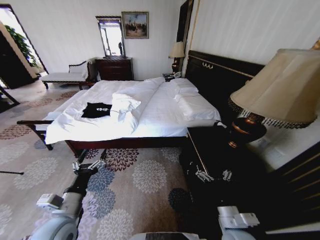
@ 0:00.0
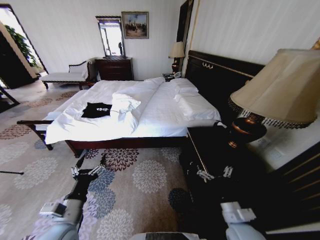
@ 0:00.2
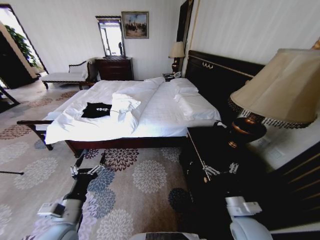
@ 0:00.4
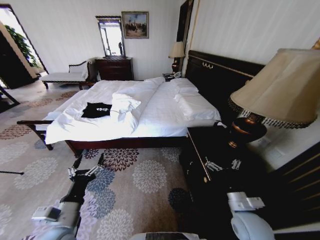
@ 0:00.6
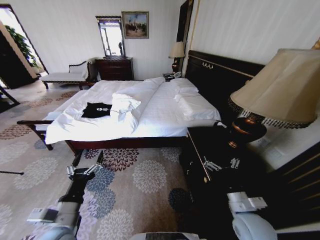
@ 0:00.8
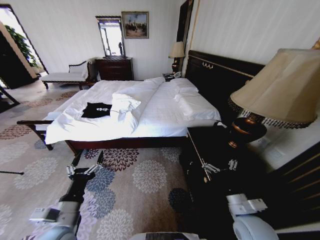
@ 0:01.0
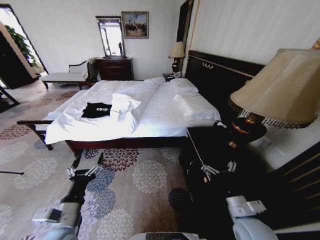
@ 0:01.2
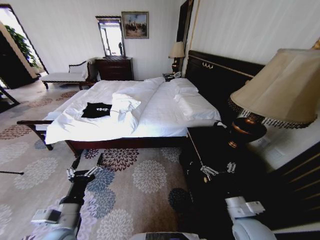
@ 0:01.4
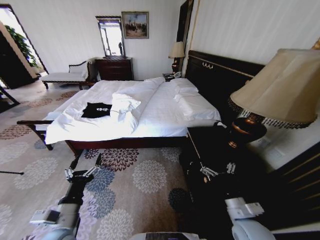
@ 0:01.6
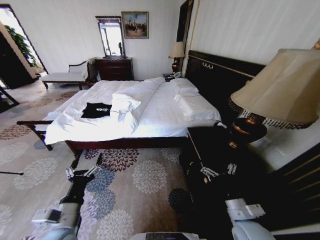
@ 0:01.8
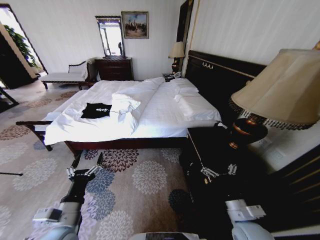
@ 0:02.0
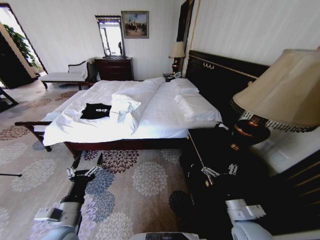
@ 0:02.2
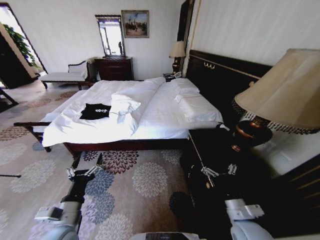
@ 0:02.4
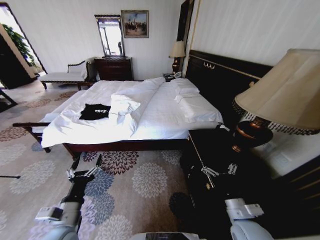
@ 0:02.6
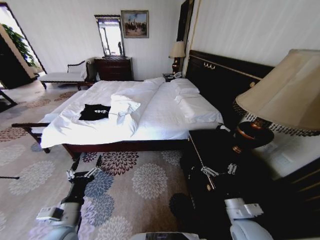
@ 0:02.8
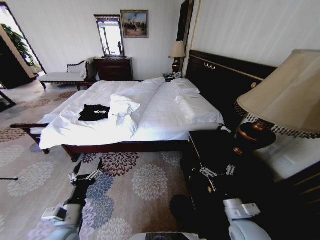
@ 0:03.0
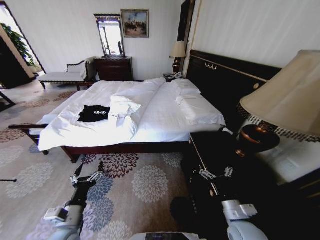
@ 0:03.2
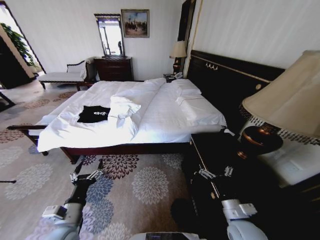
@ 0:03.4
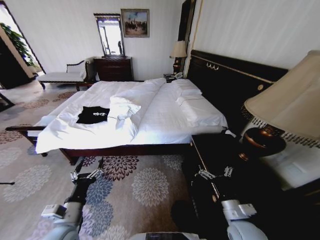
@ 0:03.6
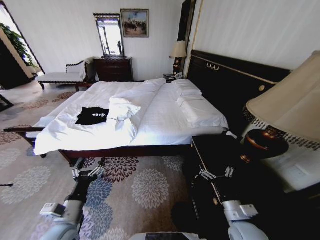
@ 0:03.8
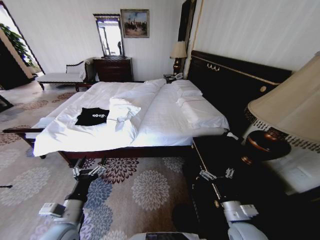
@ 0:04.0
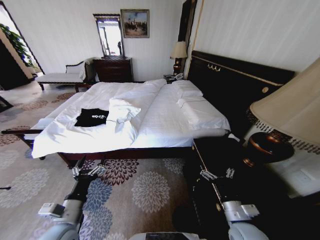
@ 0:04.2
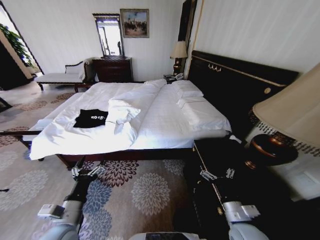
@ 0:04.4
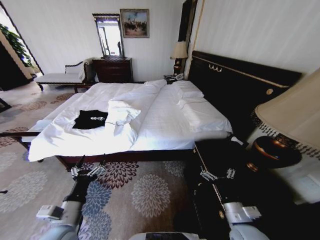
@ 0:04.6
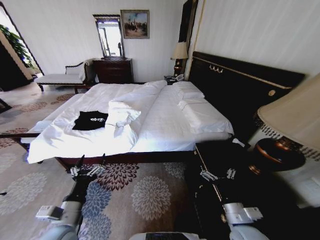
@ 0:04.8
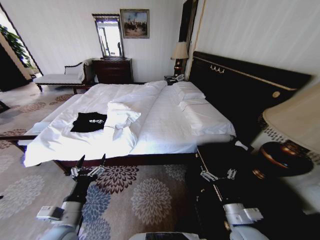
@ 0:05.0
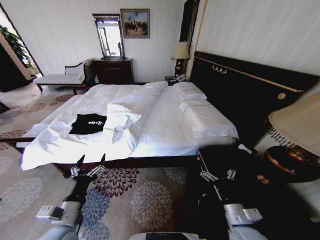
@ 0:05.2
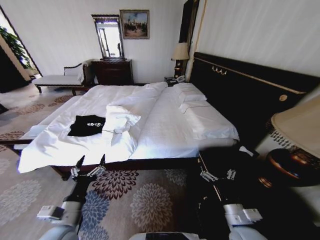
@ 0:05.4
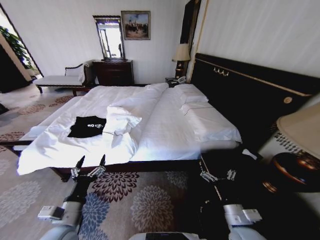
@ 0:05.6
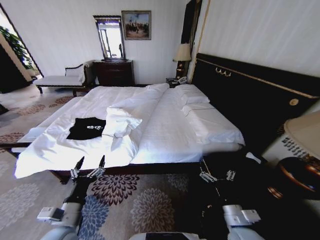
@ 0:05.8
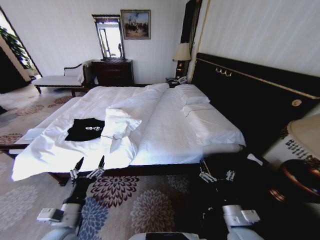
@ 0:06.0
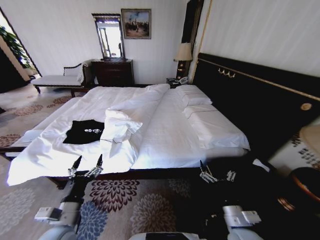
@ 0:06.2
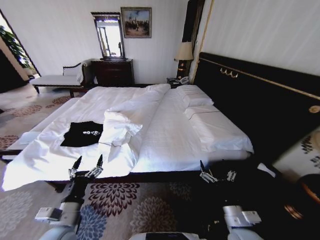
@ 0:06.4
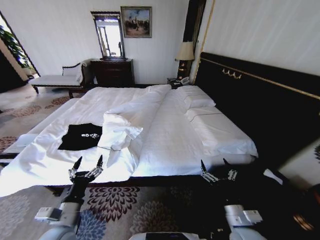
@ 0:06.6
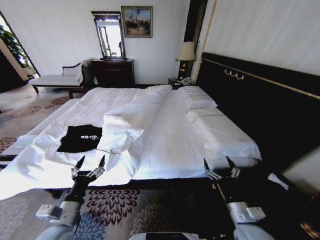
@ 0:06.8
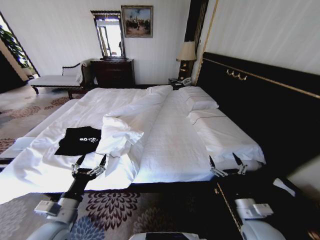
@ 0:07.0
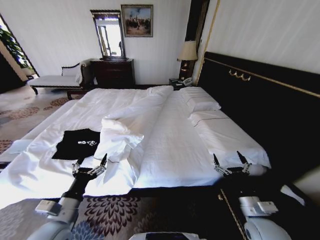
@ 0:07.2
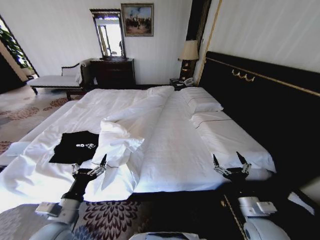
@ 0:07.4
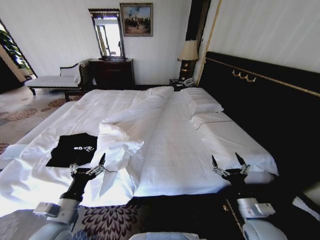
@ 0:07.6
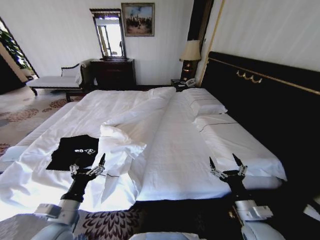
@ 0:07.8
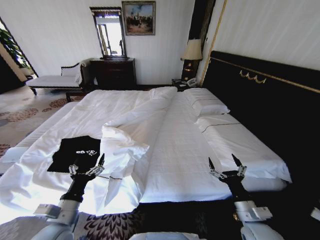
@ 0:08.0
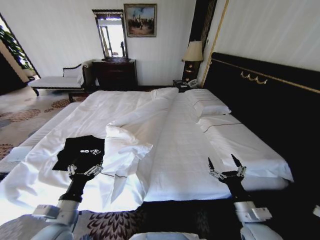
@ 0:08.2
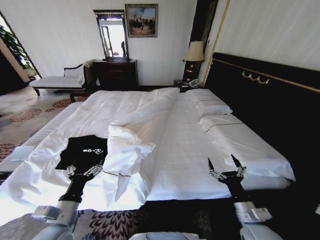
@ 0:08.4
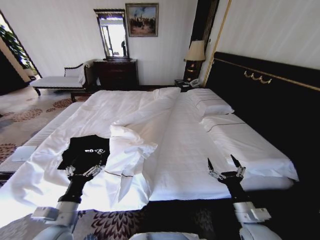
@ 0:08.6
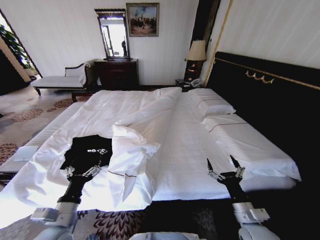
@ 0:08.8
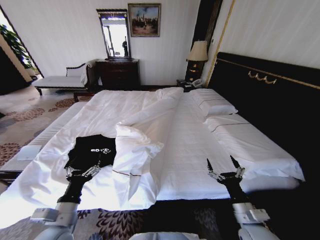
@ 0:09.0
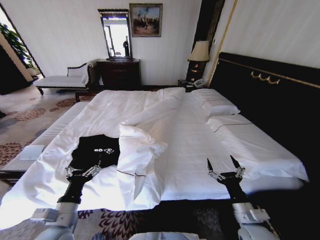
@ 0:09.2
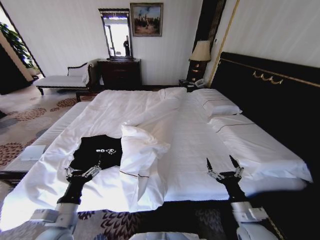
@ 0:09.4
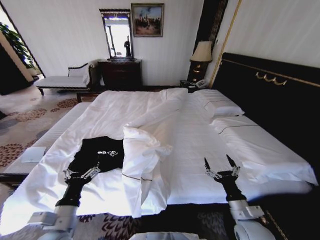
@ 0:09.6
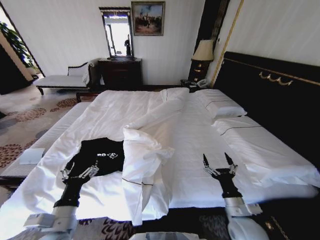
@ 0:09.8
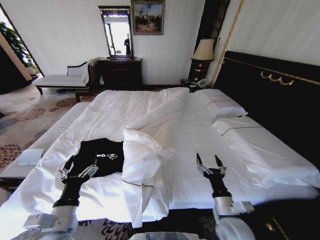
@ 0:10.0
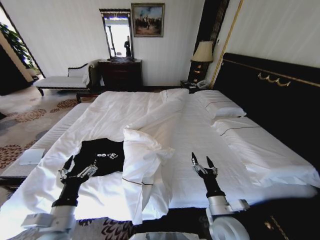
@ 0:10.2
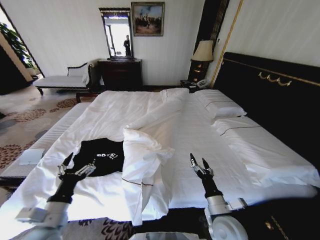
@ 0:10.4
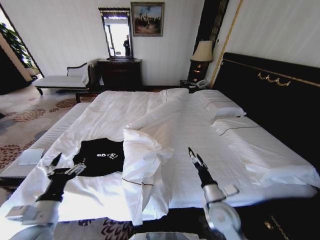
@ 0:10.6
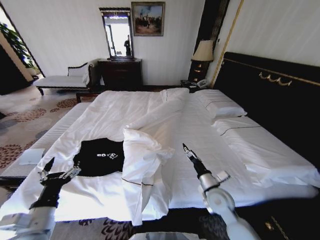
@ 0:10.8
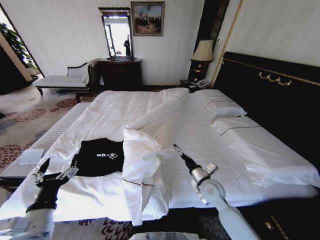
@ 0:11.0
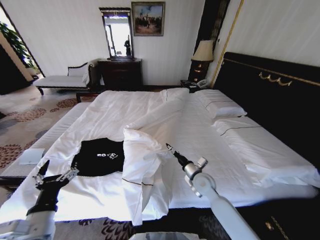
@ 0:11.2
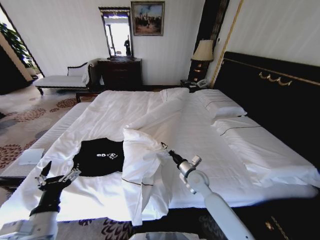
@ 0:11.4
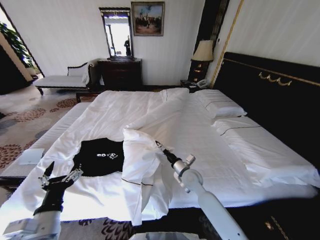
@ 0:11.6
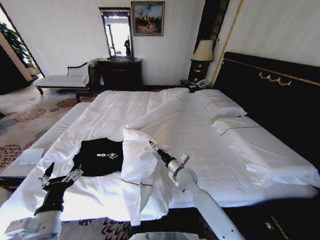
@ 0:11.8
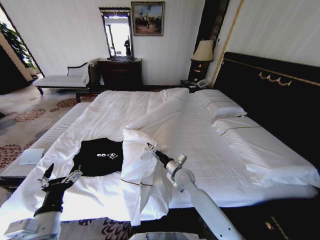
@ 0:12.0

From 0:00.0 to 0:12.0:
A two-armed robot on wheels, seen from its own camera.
Task of the whole recording: Fold the clothes on the bed.
From 0:06.0 to 0:07.6: The right gripper moves to the right, approximately 5 cm.
From 0:09.0 to 0:10.4: The right gripper shifts about 10 cm to the left.
From 0:10.4 to 0:12.0: The right gripper shifts about 20 cm forward and to the left.

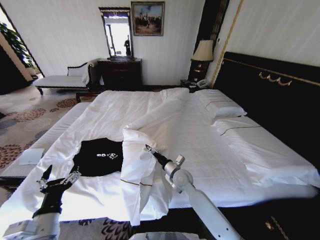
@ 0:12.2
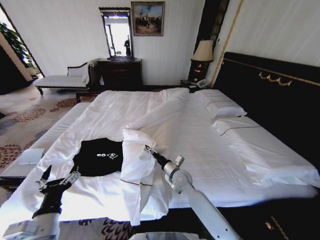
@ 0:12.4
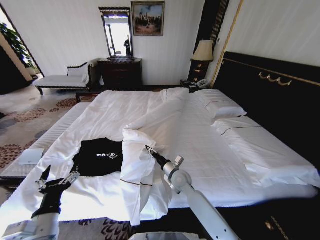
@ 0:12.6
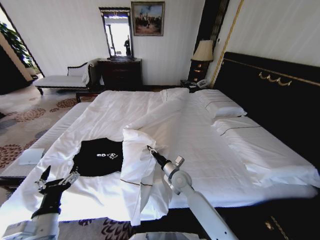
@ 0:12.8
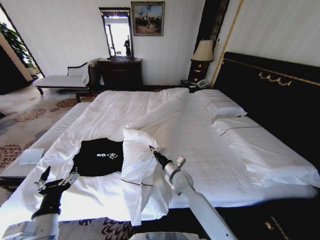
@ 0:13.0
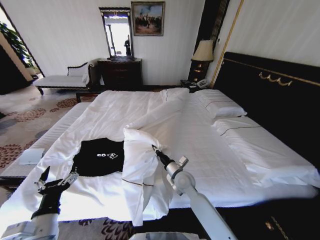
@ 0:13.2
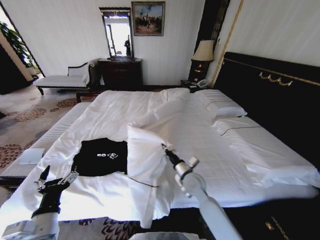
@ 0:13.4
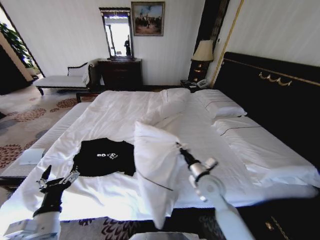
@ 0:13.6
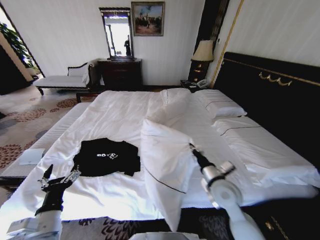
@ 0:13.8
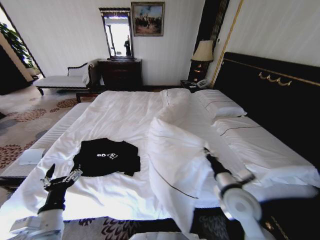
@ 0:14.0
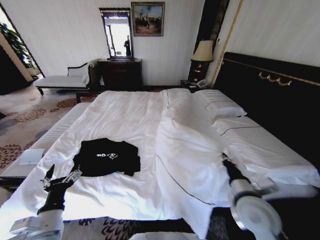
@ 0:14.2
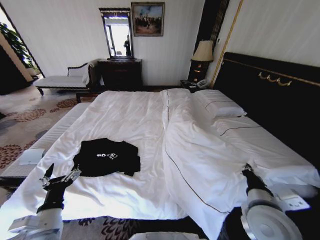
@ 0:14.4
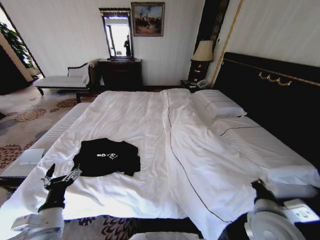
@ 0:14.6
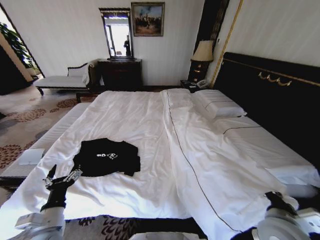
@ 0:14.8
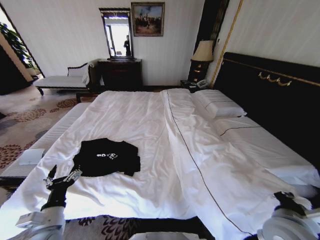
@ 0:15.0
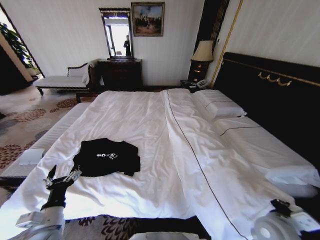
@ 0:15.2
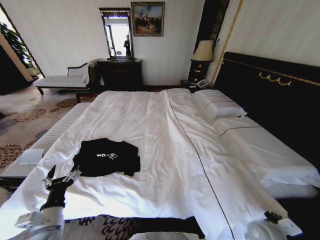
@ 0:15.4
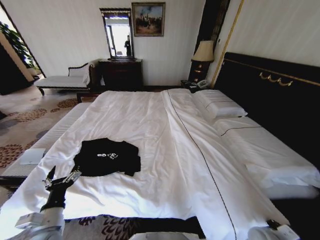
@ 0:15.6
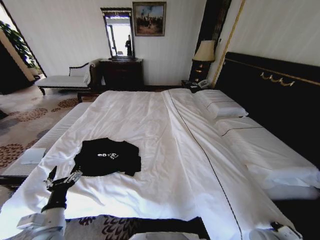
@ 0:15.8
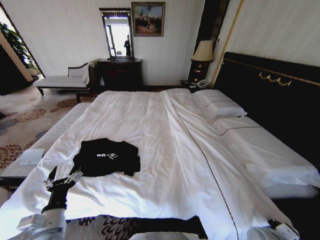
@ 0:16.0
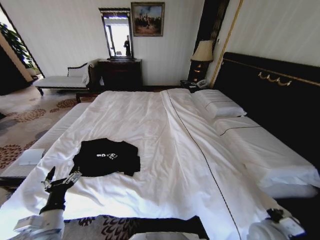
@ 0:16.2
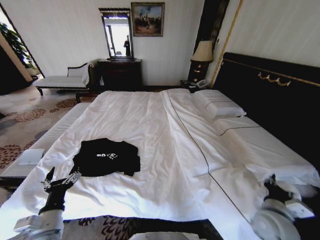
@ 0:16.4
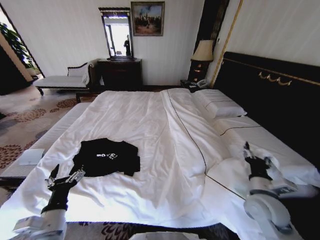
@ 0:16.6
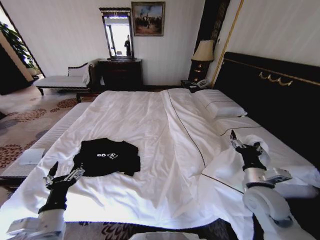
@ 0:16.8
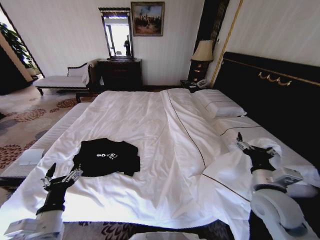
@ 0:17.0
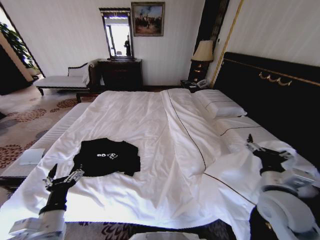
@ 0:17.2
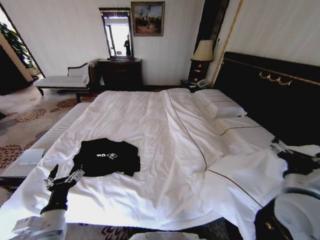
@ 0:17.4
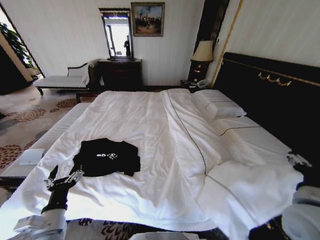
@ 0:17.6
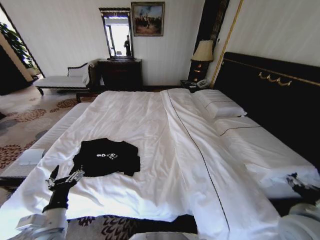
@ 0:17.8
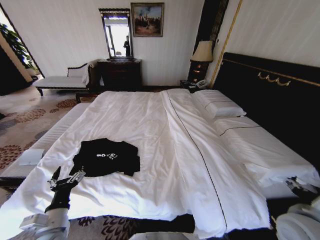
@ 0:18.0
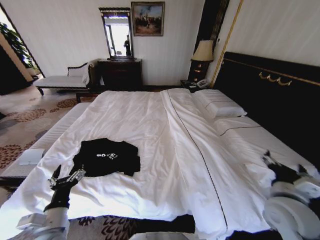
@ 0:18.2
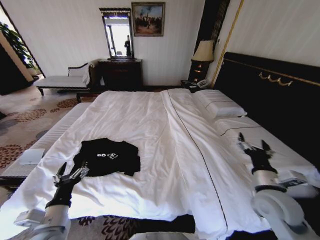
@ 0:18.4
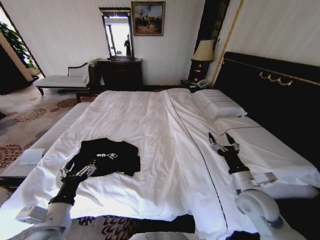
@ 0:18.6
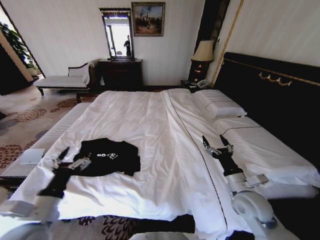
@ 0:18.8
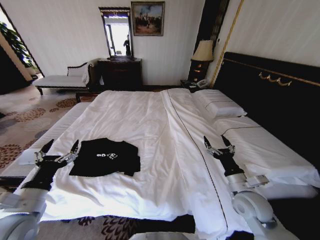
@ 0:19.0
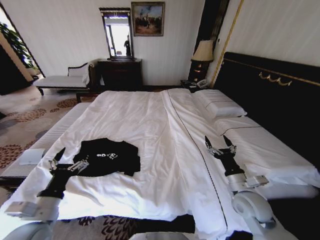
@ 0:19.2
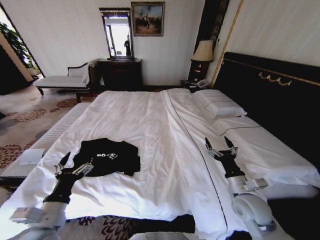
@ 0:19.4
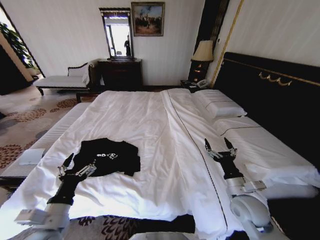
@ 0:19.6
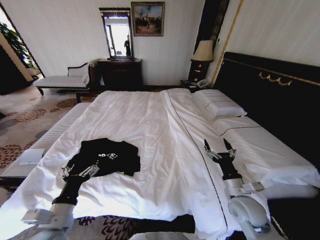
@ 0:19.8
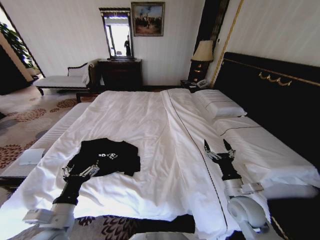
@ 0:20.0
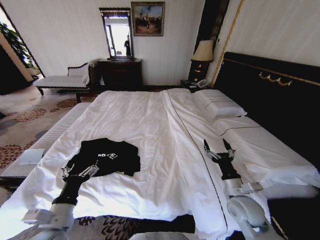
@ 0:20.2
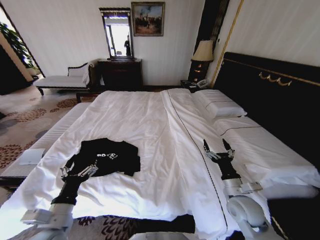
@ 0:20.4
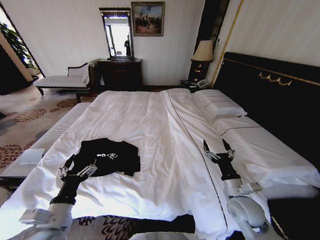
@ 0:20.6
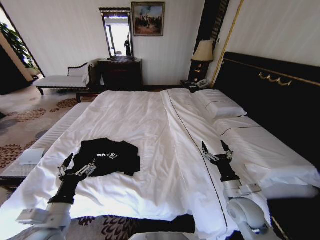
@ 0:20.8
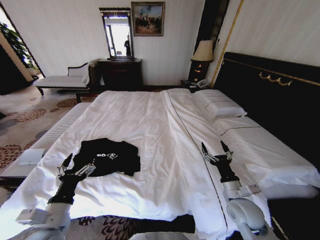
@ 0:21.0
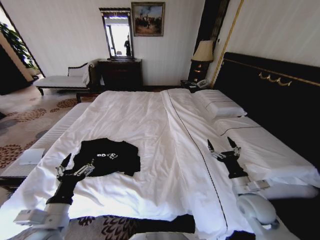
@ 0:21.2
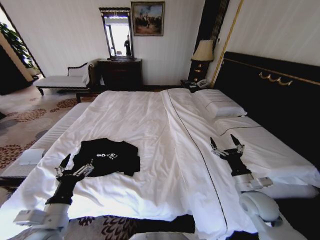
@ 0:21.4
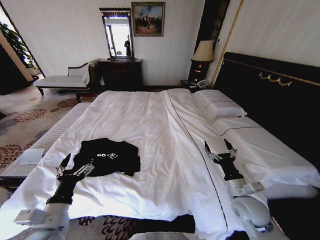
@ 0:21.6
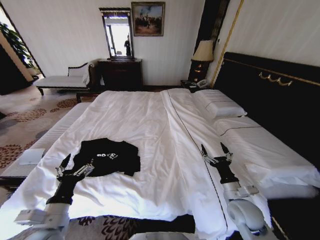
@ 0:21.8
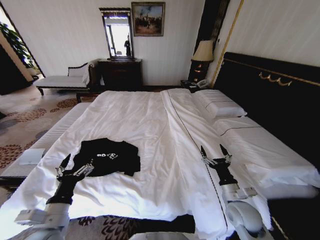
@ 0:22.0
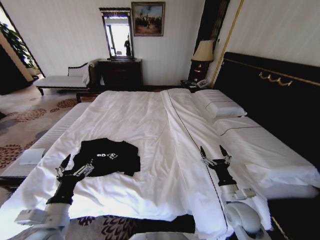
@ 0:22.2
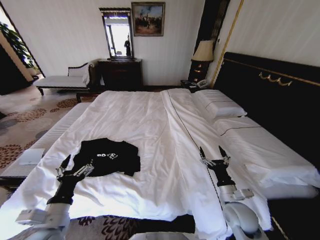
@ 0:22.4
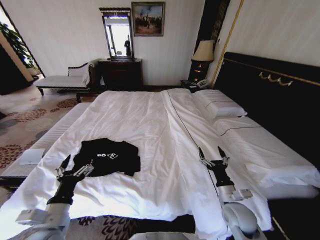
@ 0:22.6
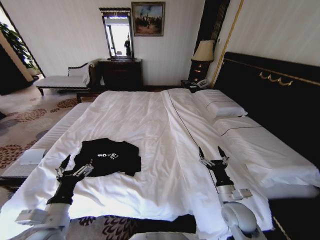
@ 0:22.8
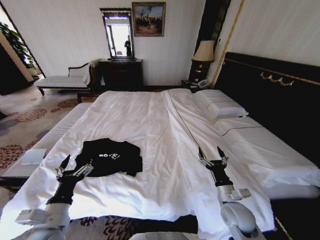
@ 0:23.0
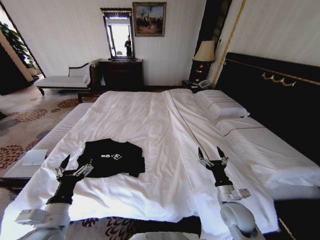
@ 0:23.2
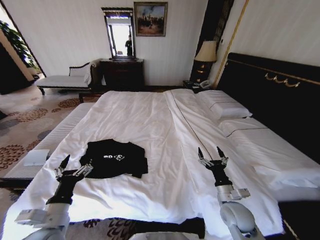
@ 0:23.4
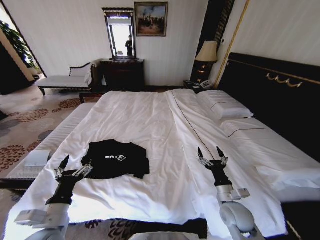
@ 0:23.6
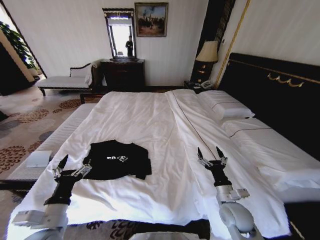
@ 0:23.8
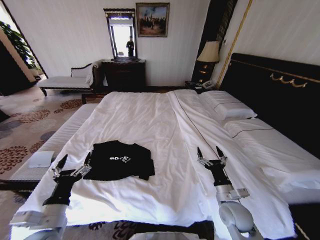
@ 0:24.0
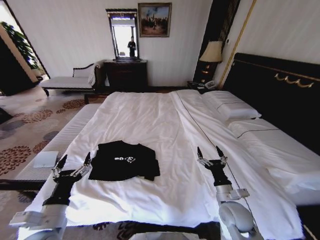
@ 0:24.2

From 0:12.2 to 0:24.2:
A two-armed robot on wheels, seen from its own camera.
Task of the whole recording: Fold the clothes on the bed.
From 0:12.2 to 0:13.8: The right gripper heads to the right, upward and backward, covering about 15 cm, and closes its fingers.
From 0:13.8 to 0:15.2: The right gripper heads to the right and backward, covering some 15 cm.
From 0:15.2 to 0:16.6: The right gripper moves forward, roughly 5 cm, goes downward and returns, approximately 15 cm each way, and opens up.
From 0:16.6 to 0:18.2: The right gripper is displaced upward by about 5 cm.
From 0:18.2 to 0:19.8: The right gripper is displaced downward and to the left by about 10 cm.
From 0:19.8 to 0:21.2: The grippers make only small movements.
From 0:21.2 to 0:22.6: The right gripper moves approximately 5 cm.
